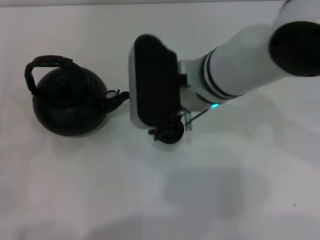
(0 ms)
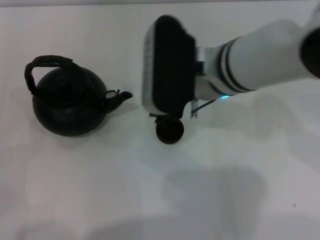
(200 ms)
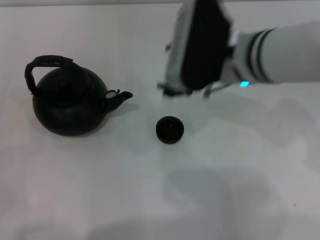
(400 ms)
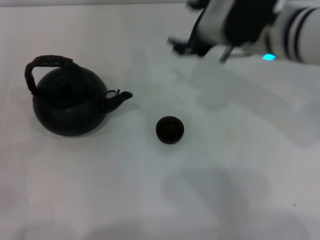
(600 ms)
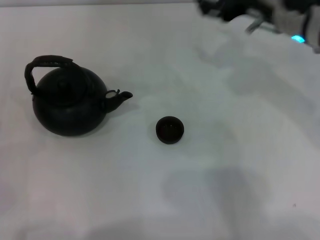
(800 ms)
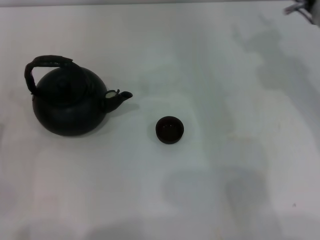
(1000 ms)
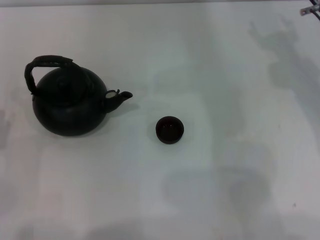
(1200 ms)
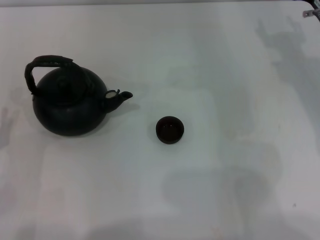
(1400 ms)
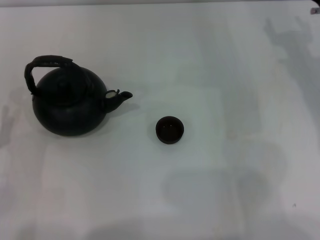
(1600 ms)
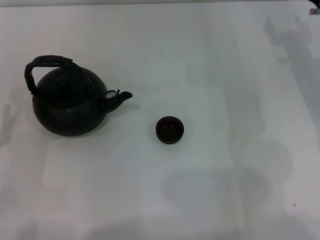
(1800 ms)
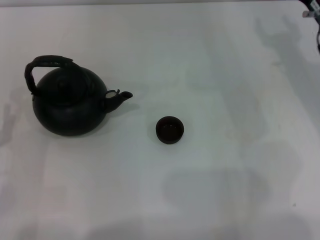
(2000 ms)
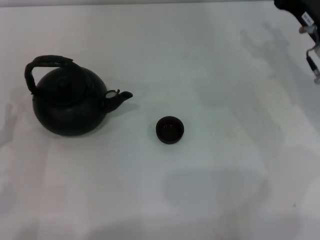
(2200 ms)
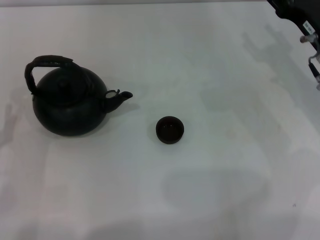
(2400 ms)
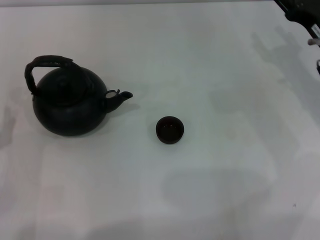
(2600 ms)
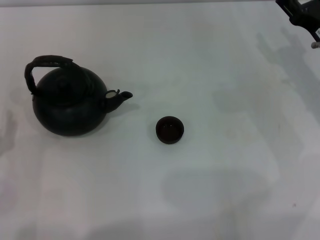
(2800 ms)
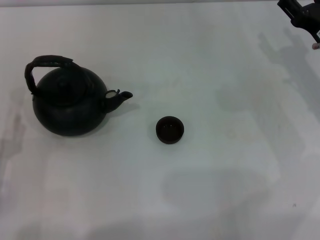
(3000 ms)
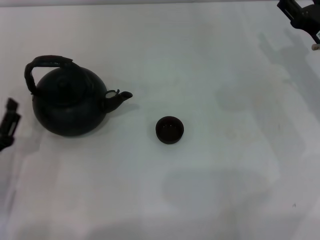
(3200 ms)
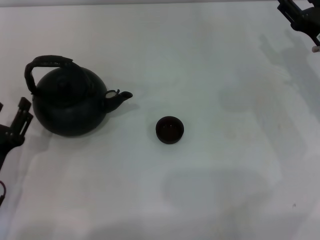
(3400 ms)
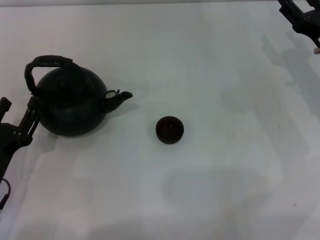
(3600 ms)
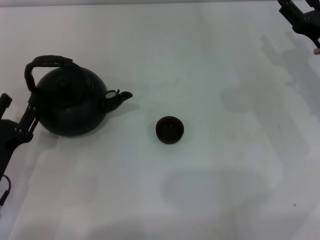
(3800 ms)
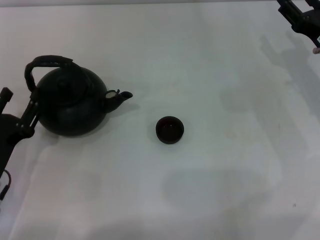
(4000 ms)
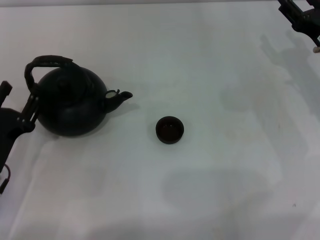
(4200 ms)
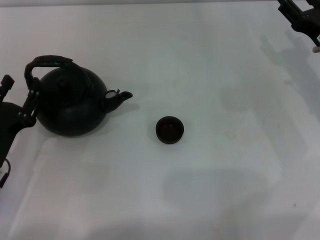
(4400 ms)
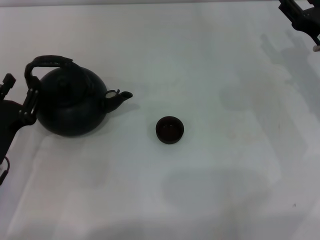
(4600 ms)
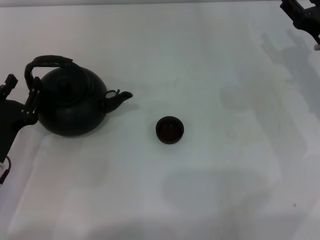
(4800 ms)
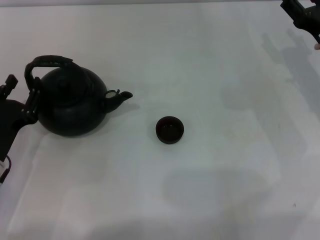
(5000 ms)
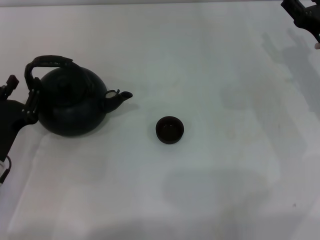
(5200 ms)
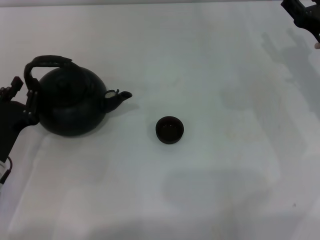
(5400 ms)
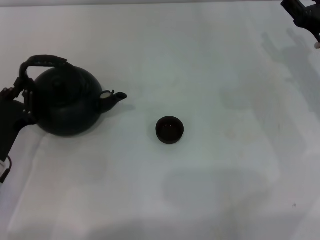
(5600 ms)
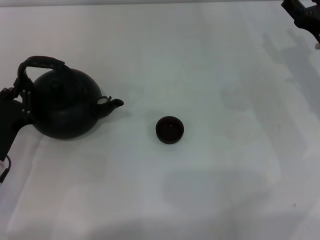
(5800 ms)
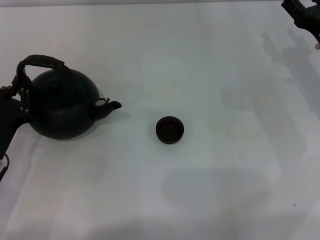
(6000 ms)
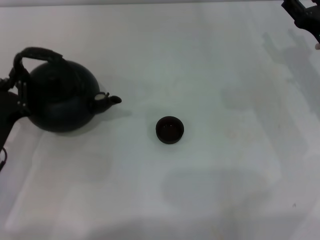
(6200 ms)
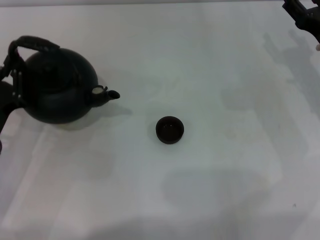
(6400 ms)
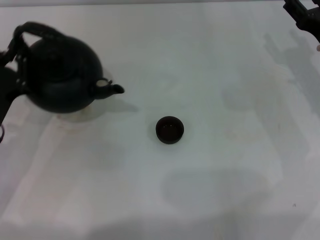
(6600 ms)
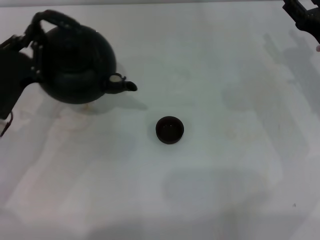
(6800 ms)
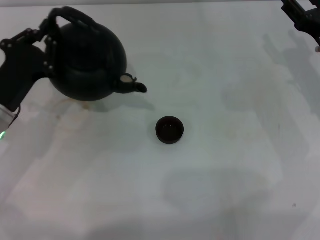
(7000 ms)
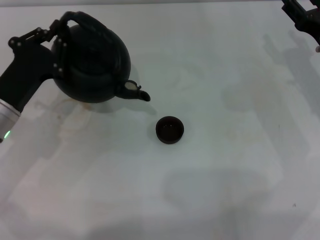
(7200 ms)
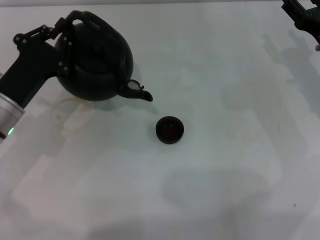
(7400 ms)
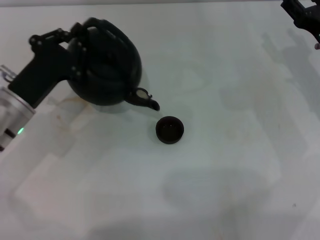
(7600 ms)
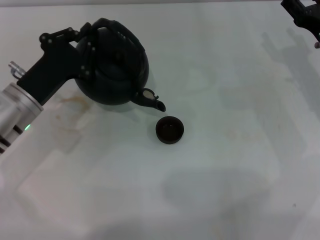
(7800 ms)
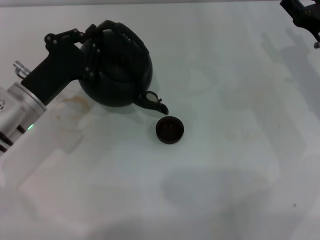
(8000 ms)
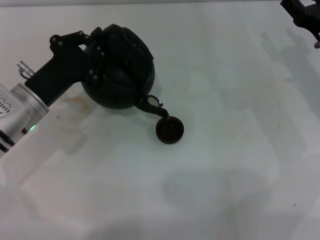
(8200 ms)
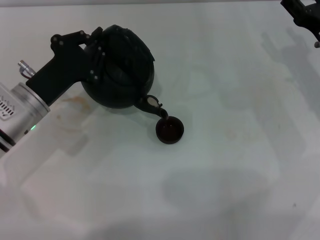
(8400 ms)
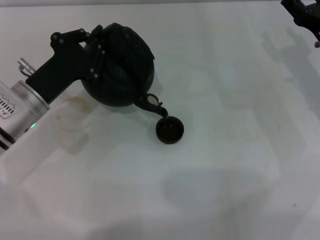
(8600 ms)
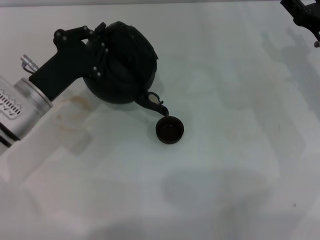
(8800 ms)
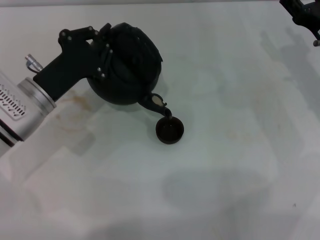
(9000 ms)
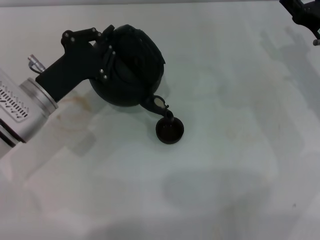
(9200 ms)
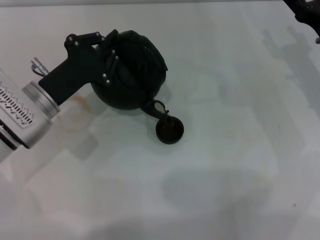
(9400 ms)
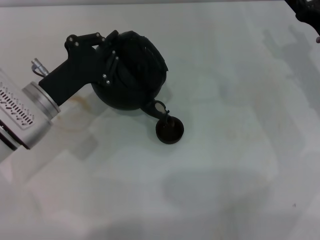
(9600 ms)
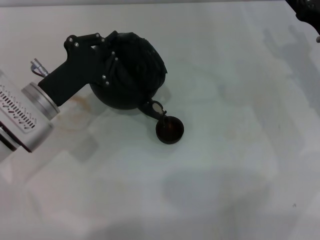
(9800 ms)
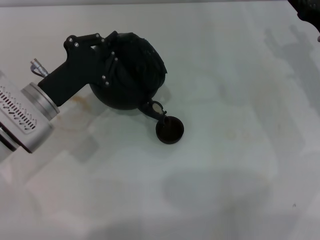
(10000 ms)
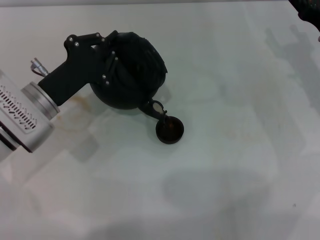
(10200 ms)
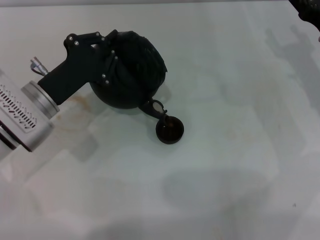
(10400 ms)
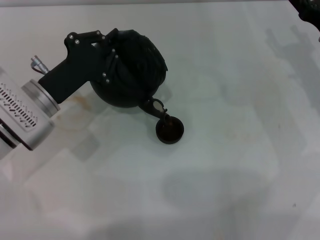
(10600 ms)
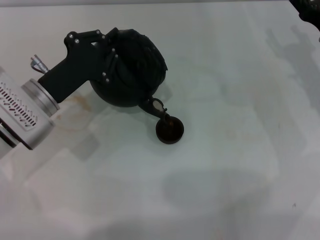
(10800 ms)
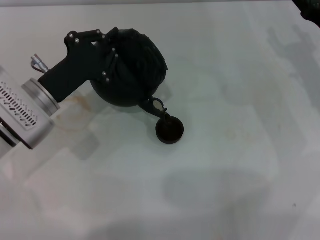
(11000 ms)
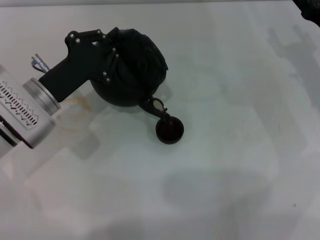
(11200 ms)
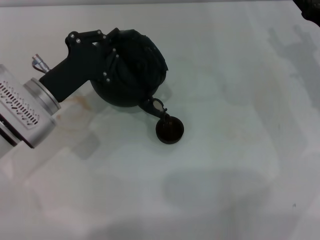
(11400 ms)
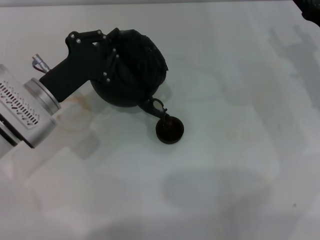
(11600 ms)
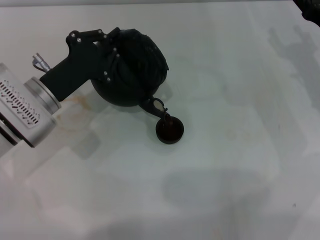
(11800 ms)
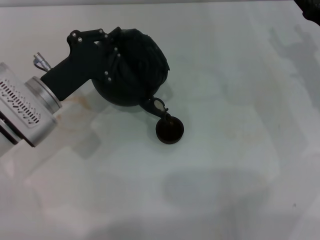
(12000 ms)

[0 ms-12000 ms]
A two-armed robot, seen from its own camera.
Task of the whole recording: Grasp the handle of the teapot with one hand and pour tea into the teacup.
Step, 400 ms to 6400 ms: Pick up the teapot with the left gripper.
0 ms to 1600 ms: The right gripper moves to the right, about 20 cm.
1600 ms to 3000 ms: The right gripper goes some 5 cm downward.
3000 ms to 4400 ms: The left gripper ends up roughly 5 cm from where it was.
4400 ms to 6000 ms: The left gripper closes.
6000 ms to 7600 ms: The left gripper heads forward, covering about 10 cm.
7600 ms to 10400 ms: The grippers move only a little.
10400 ms to 12000 ms: The two grippers keep their place.

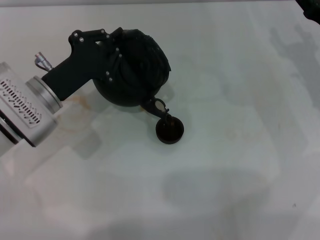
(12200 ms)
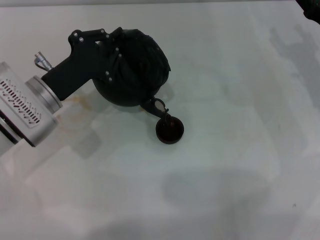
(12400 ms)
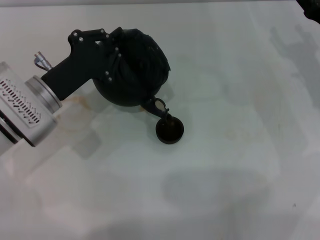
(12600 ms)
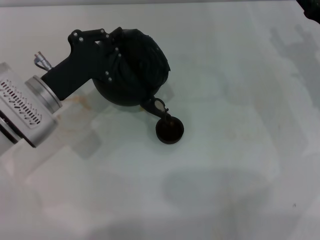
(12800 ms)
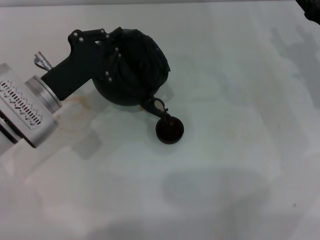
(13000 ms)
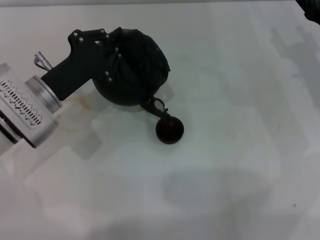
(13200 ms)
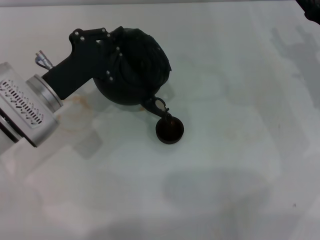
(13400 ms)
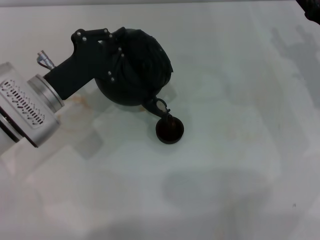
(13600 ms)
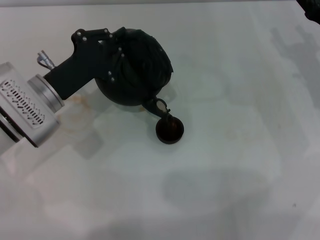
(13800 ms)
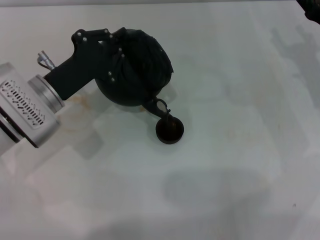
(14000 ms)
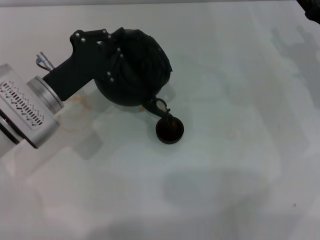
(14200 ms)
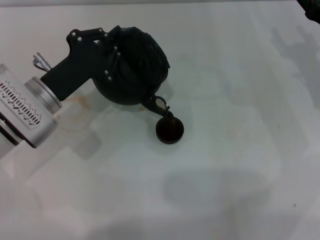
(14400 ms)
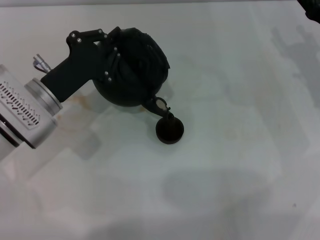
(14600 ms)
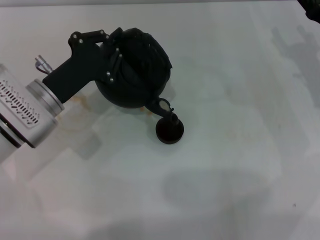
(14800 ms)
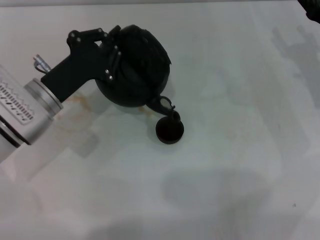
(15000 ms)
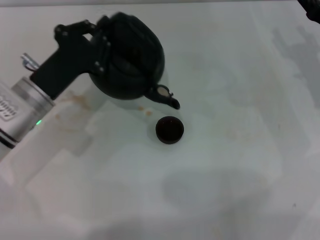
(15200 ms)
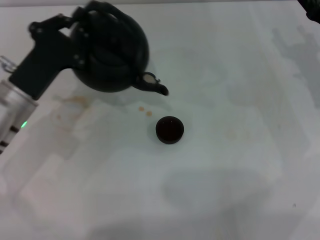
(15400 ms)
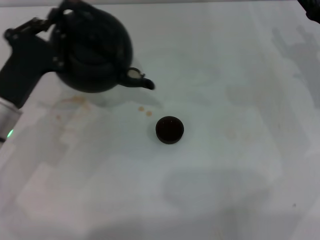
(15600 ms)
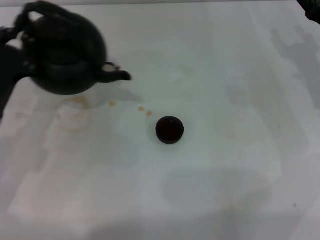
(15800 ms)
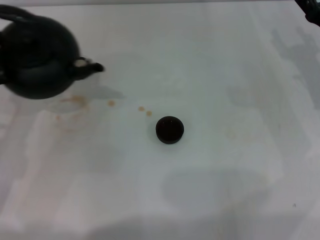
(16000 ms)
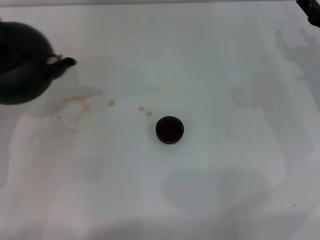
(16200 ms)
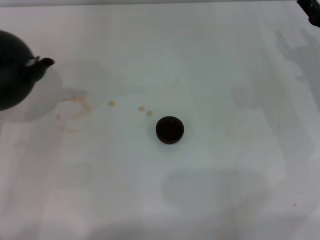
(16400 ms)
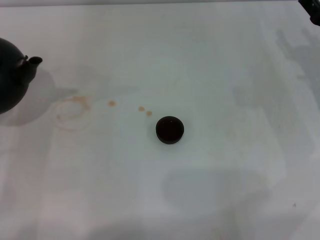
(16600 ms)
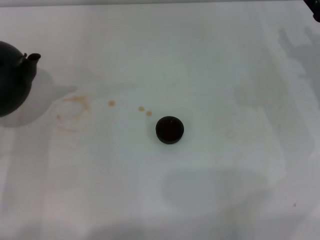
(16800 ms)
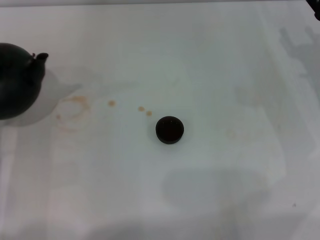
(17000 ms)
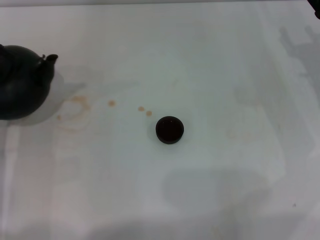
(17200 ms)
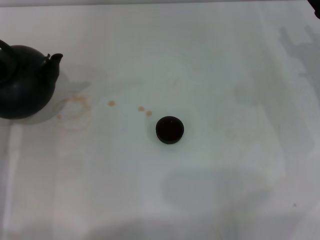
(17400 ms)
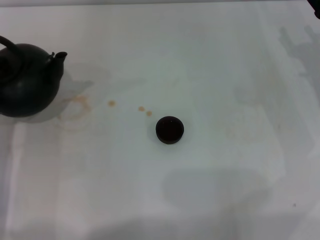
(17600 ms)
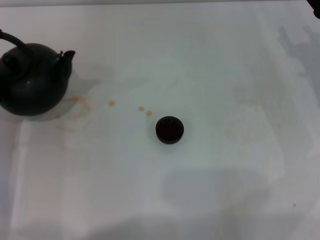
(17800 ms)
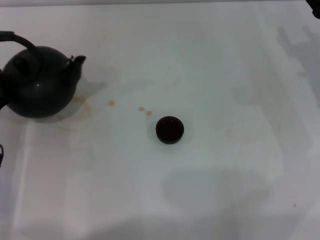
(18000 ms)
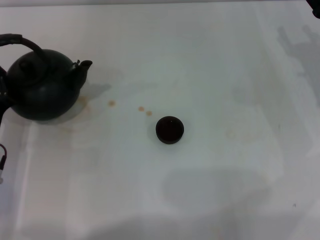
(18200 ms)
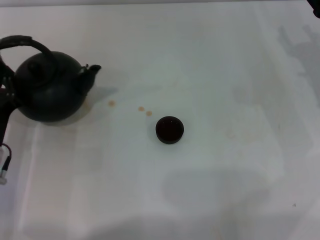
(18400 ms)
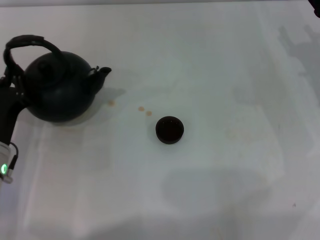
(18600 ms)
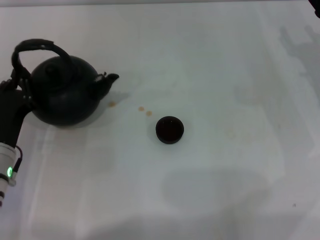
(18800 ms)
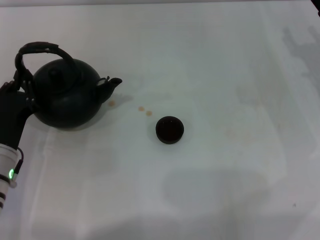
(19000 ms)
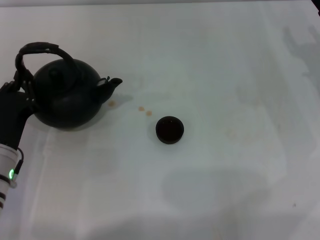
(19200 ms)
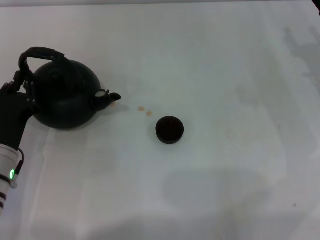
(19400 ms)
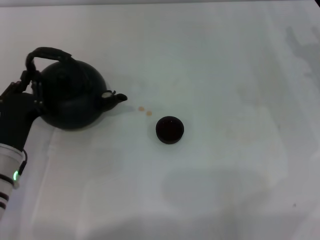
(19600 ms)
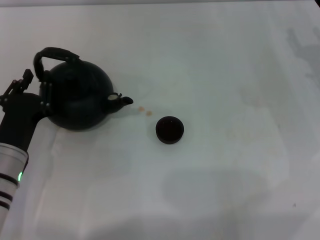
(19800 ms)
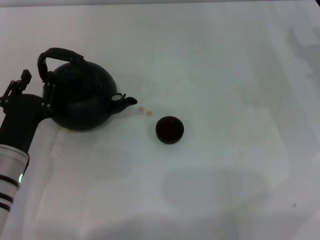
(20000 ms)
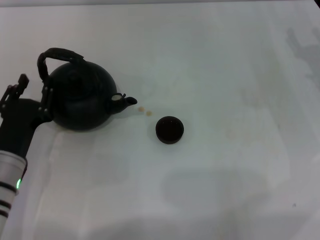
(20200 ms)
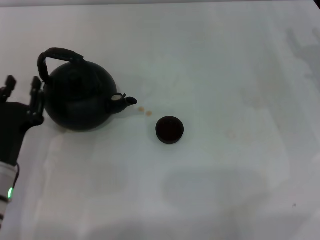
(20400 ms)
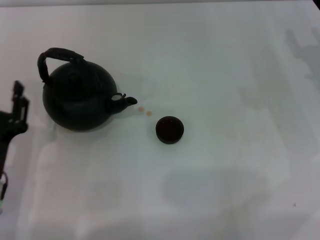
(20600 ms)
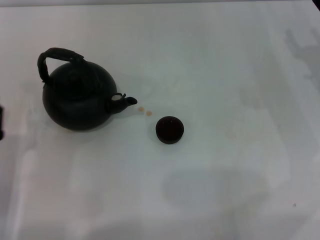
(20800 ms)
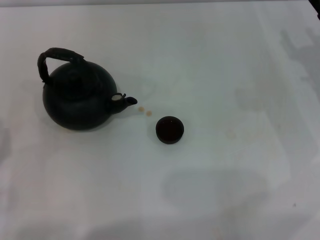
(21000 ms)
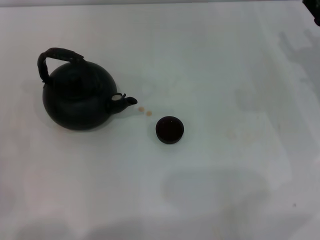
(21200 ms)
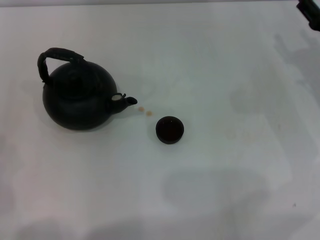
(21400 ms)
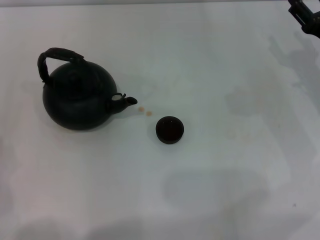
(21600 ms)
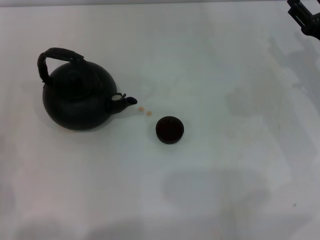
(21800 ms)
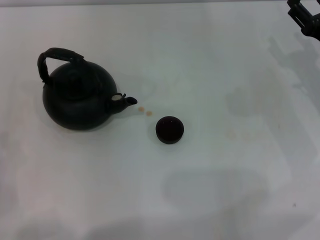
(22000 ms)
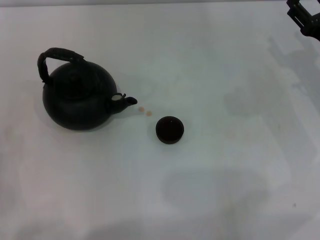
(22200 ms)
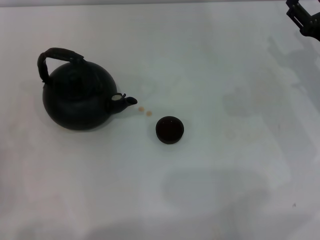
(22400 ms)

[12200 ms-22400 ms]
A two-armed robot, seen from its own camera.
Task of the whole recording: Grasp the handle of the teapot with one hand and pour tea into the teacup.
Step, 12200 ms to 15600 ms: Pour tea into the teacup with the left gripper.
Step, 15800 ms to 20400 ms: Put down the teapot with the left gripper.
12200 ms to 13600 ms: Both grippers stay about where they are.
13600 ms to 15200 ms: The grippers move only a little.
15200 ms to 16600 ms: The left gripper travels to the left and backward by about 15 cm.
16600 ms to 18000 ms: The left gripper moves roughly 5 cm.
18000 ms to 19400 ms: The grippers make only small movements.
19400 ms to 21000 ms: The left gripper moves backward, some 10 cm, and opens up.
21000 ms to 22400 ms: The grippers make only small movements.
